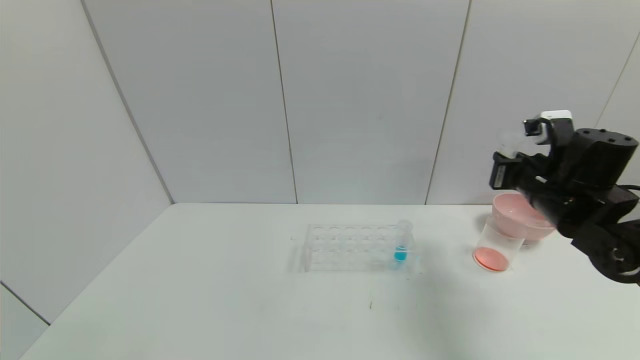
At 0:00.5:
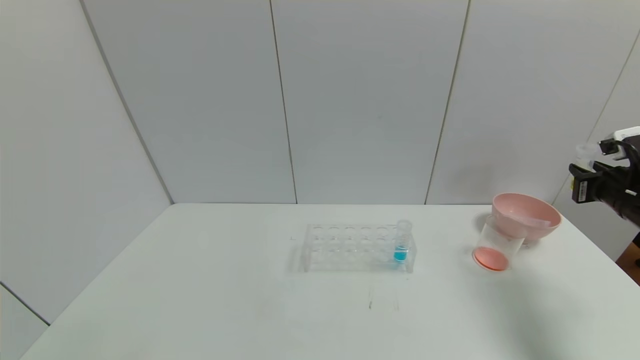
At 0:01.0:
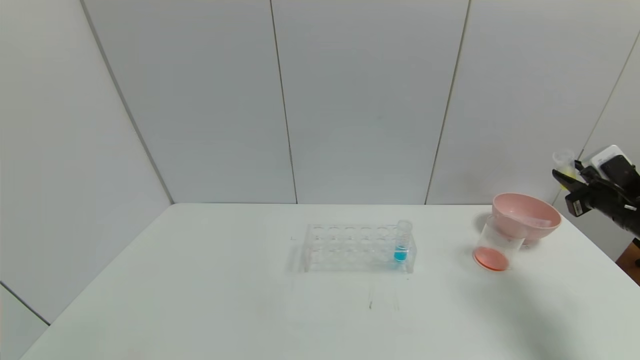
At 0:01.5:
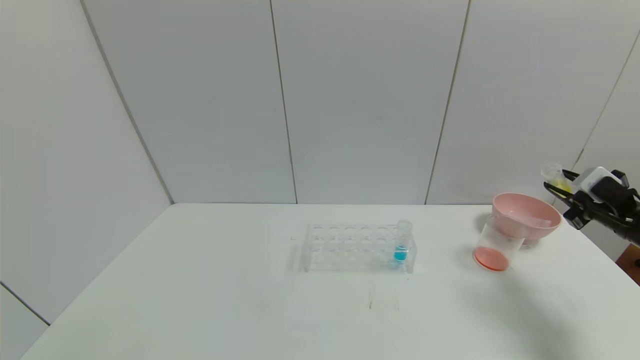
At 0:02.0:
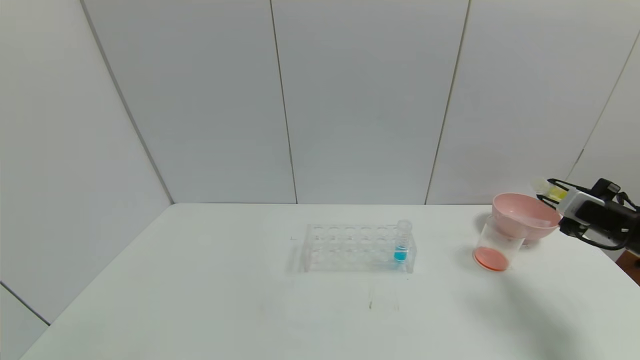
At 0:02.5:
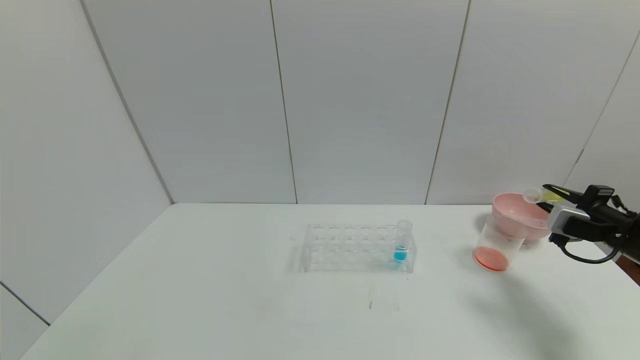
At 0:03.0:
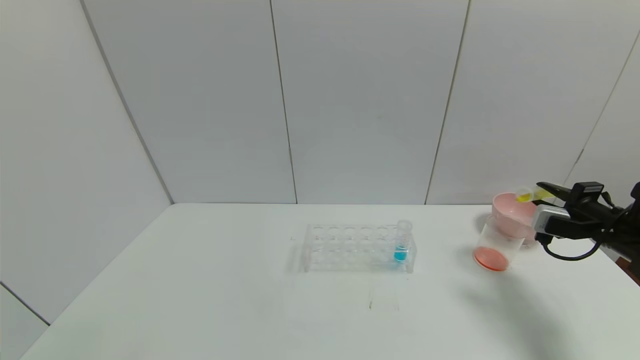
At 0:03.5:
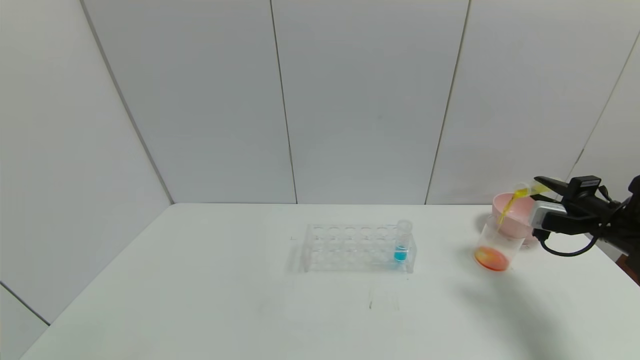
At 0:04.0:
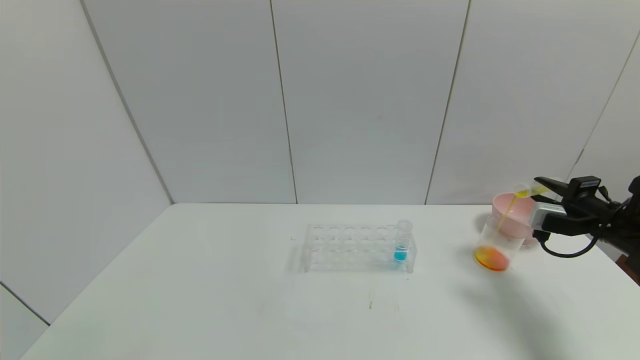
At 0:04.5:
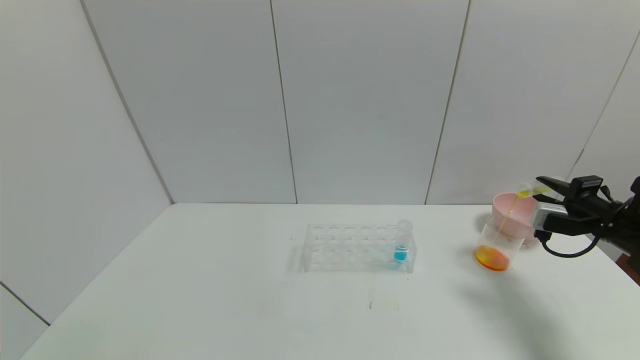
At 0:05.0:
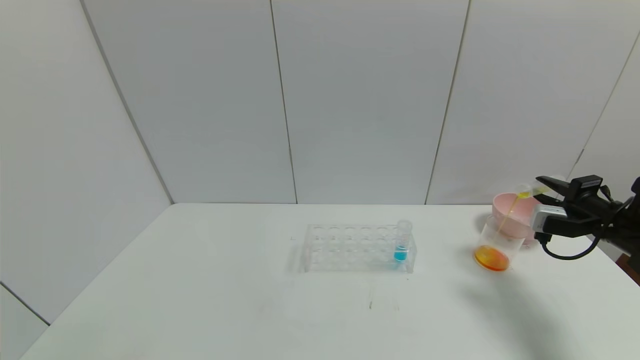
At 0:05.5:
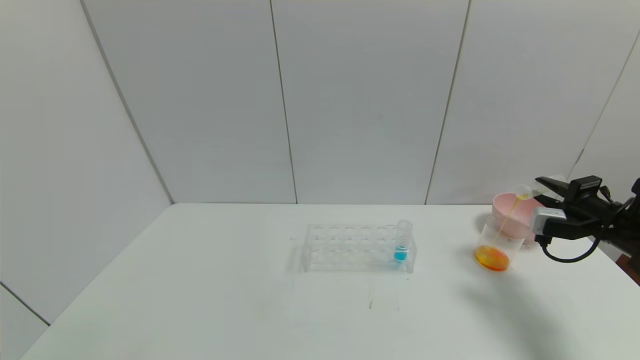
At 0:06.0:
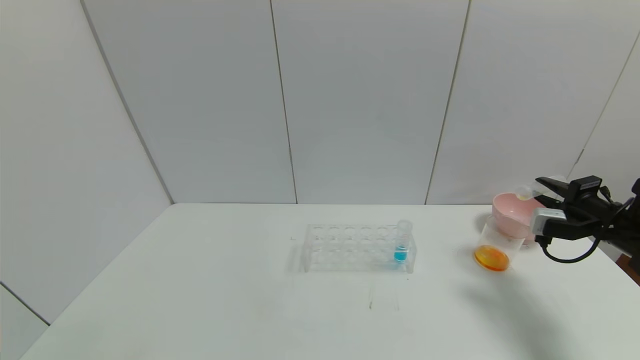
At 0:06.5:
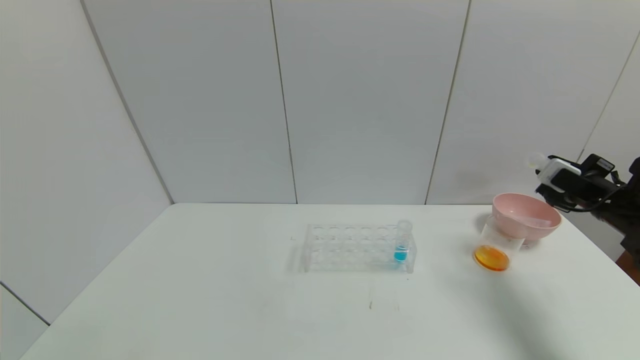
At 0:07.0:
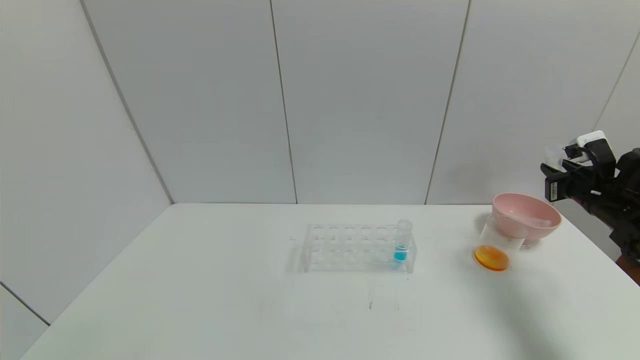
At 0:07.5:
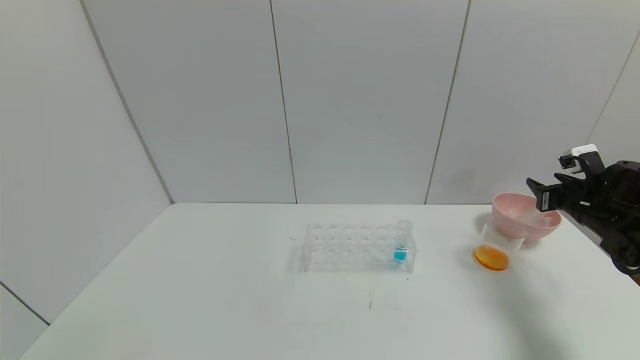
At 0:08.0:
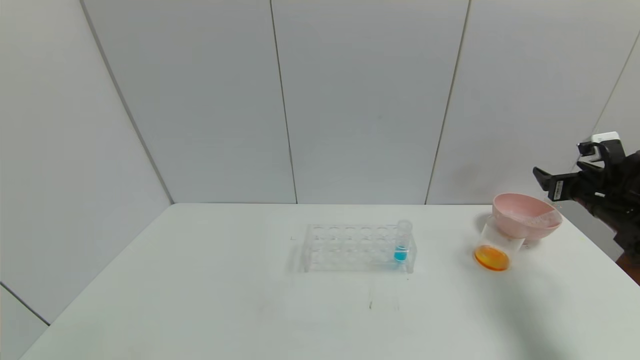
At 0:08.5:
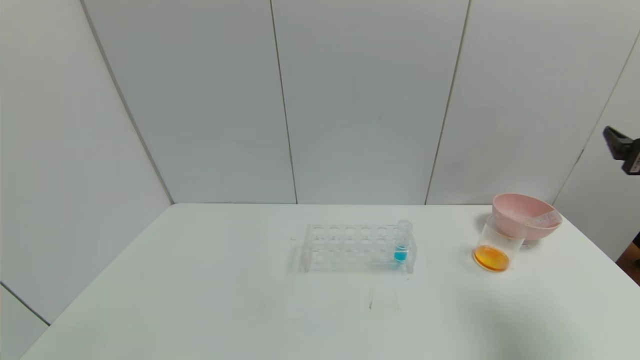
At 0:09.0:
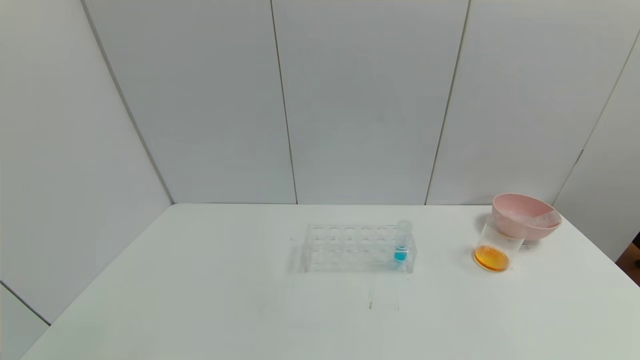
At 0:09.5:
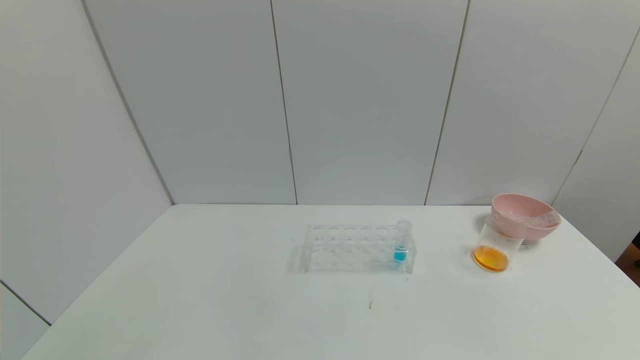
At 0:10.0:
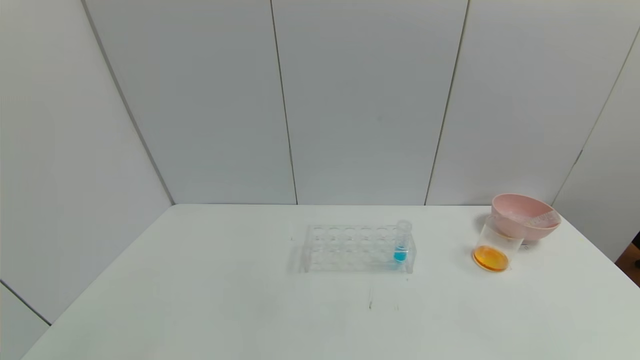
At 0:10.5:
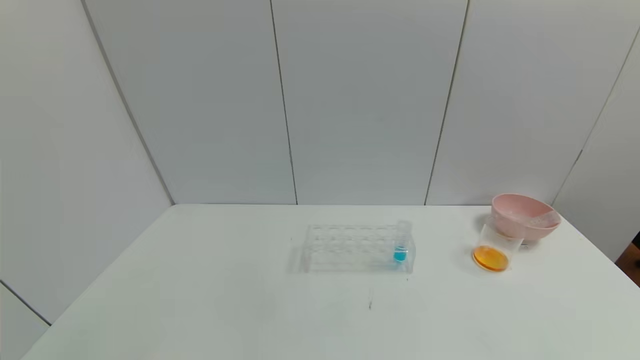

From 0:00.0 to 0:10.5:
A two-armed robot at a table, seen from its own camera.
Task of the whole recording: pick up the test tube with yellow pigment and the test tube with red pigment by grippers and pour them into the beaker.
Step, from 0:00.0 to 0:06.5: Pour the yellow reagent into the graduated cylinder with right gripper.
Step, from 0:07.0 to 0:08.0: Place the test tube into the bowl with right gripper.
From 0:00.0 to 0:02.0: The right gripper is displaced to the right and downward by some 15 cm.
From 0:06.5 to 0:08.5: The right gripper moves backward and upward, some 15 cm, and opens.
From 0:08.5 to 0:10.5: The right gripper heads backward and downward, covering about 35 cm.

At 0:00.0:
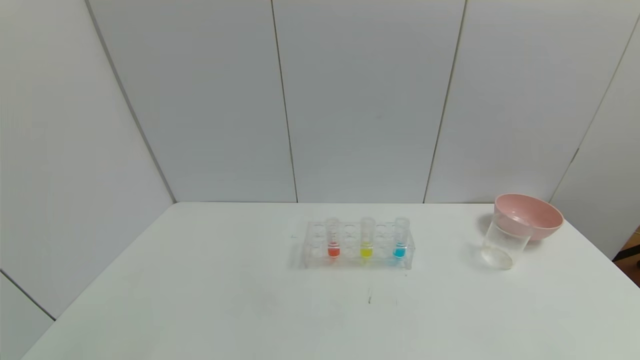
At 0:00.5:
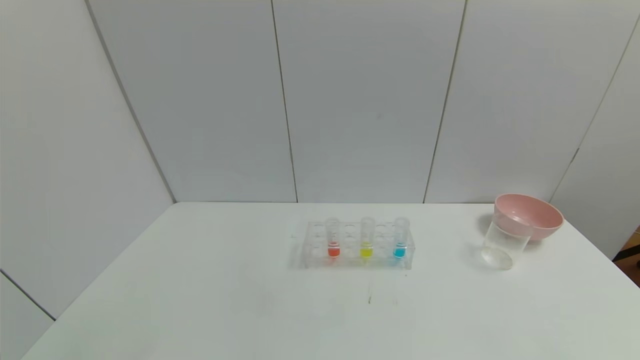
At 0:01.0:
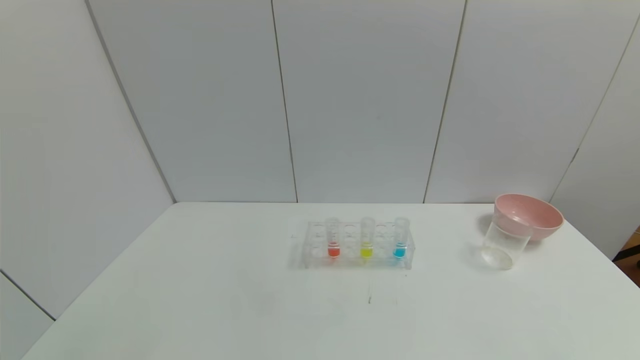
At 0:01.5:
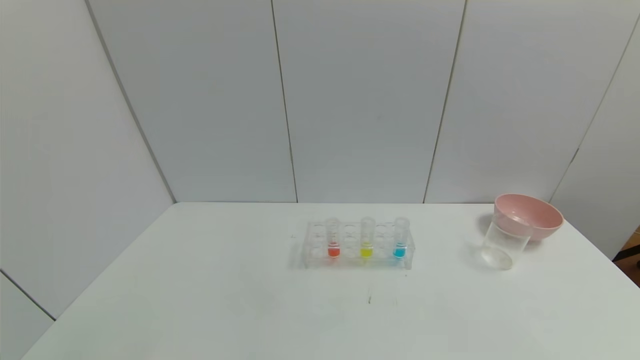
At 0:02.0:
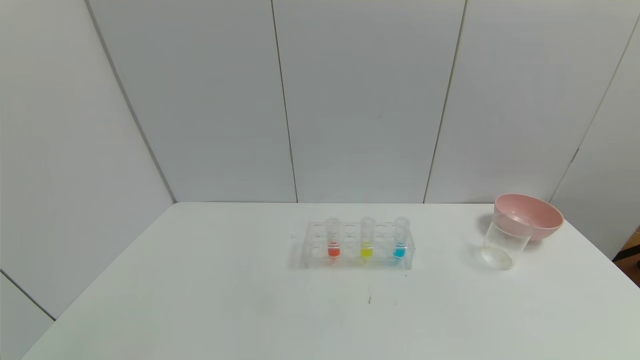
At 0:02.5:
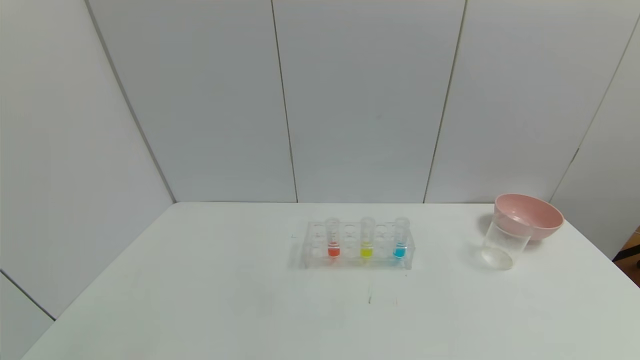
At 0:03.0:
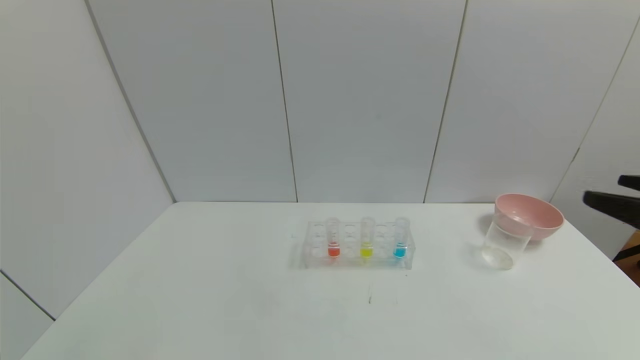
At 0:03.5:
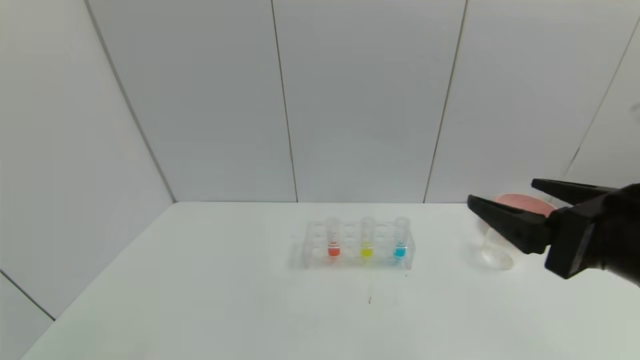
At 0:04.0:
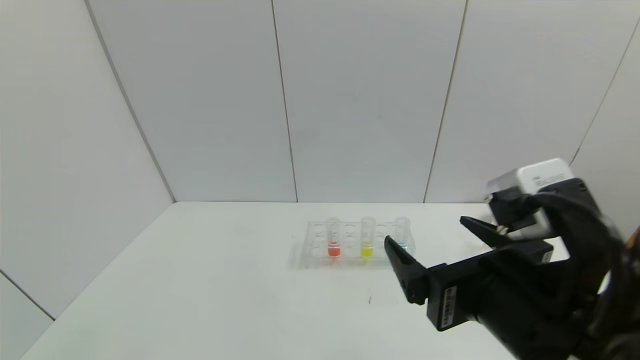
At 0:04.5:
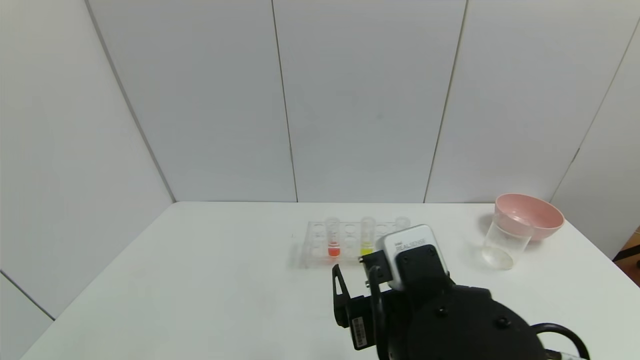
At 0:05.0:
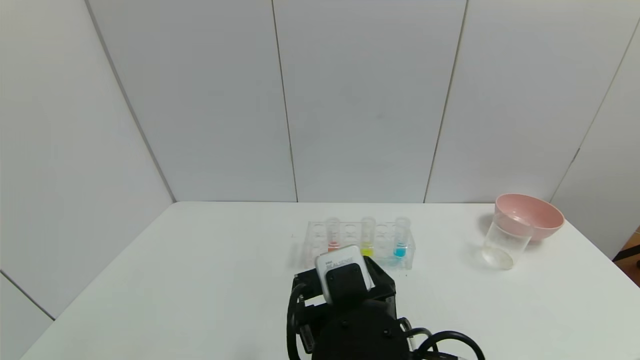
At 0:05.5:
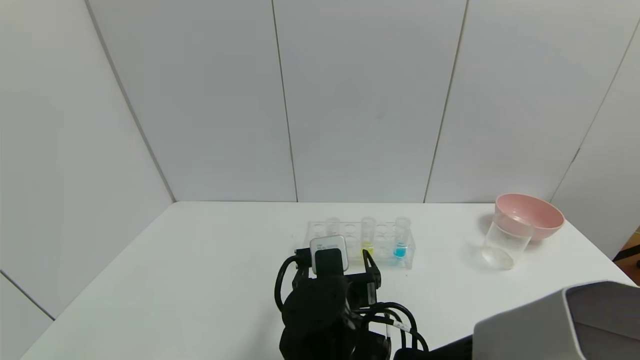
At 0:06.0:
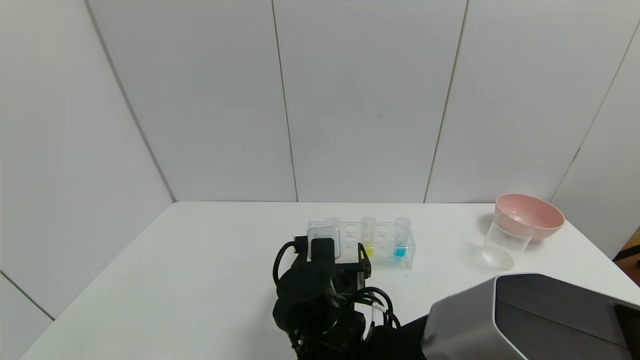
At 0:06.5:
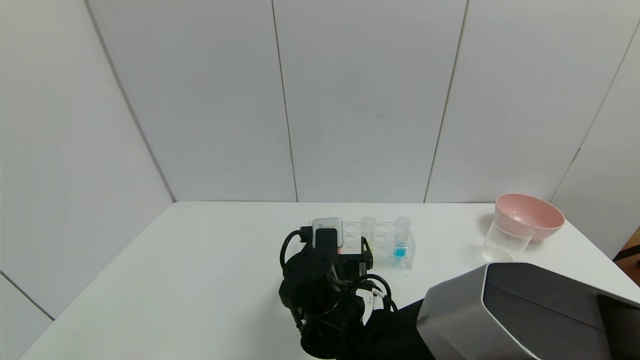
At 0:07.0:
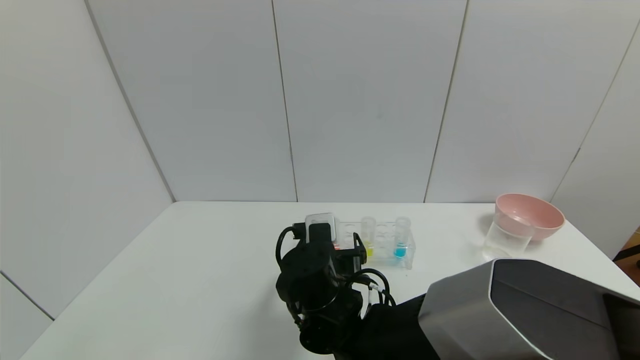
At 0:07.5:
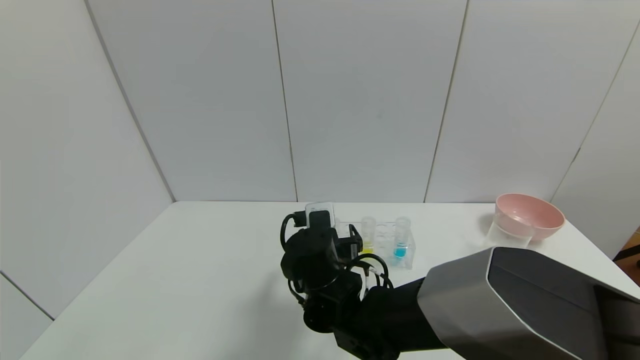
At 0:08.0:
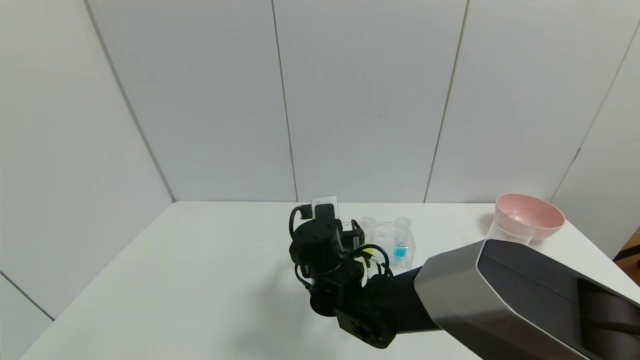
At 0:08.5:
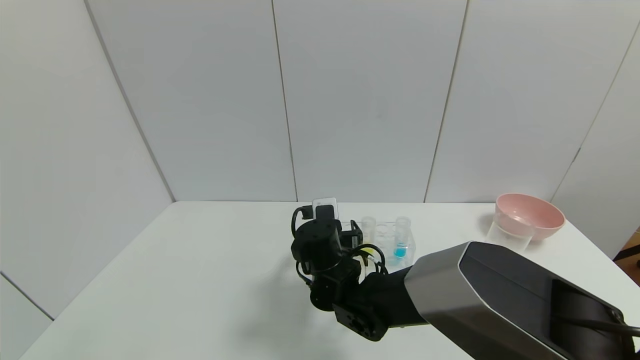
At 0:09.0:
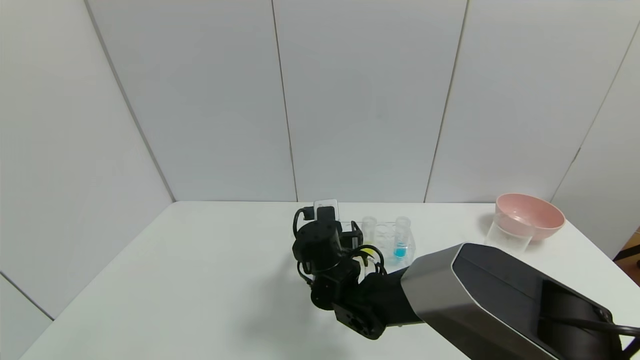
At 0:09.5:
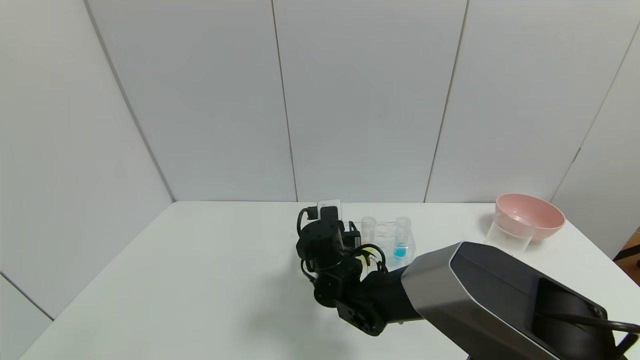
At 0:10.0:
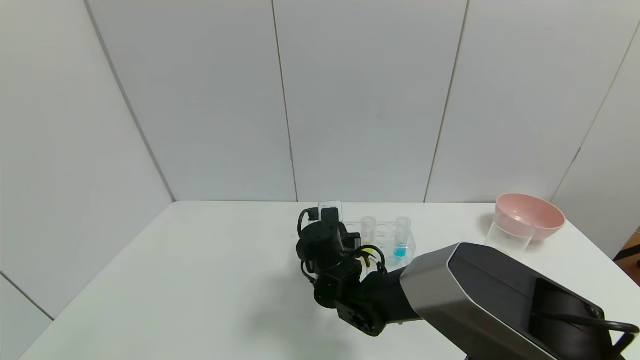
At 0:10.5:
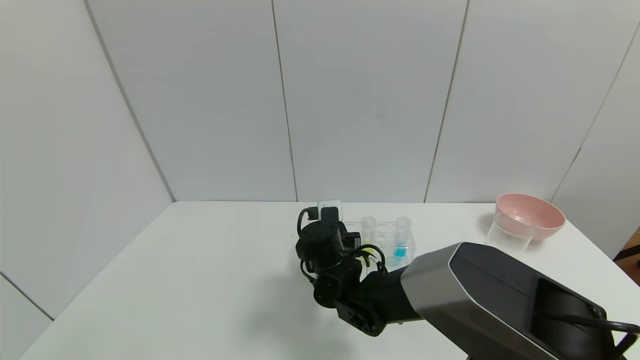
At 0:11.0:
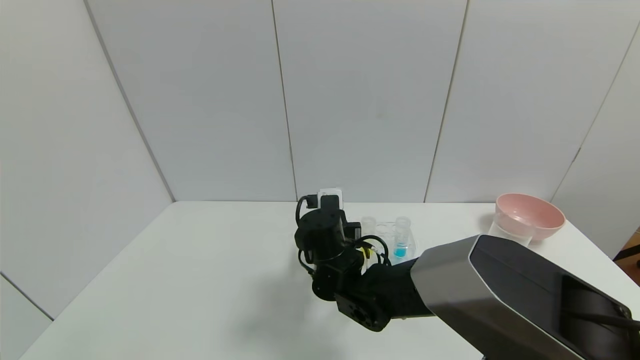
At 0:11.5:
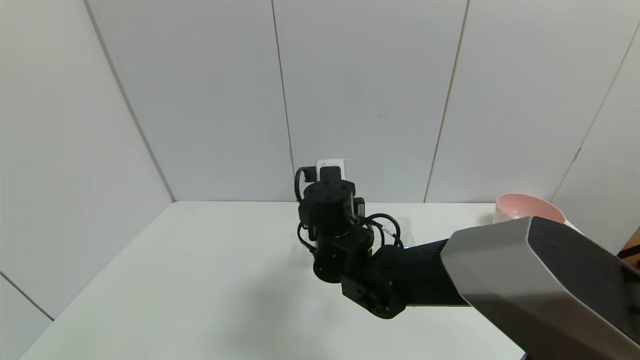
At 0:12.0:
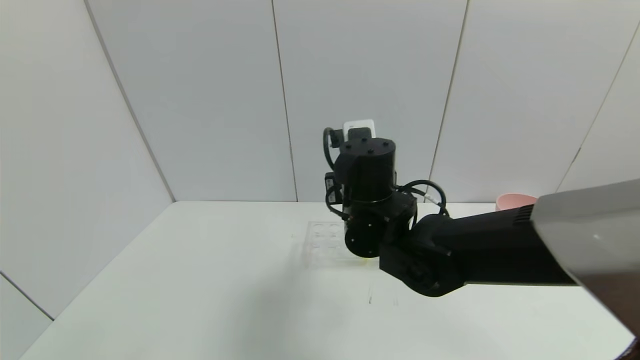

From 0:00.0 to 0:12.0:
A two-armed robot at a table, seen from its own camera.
Task of the whole recording: pick up the test tube with yellow pigment and the test tube with red pigment by grippers and pour them into the beaker.
From 0:02.0 to 0:04.0: The right gripper goes about 25 cm to the left and forward.
From 0:04.0 to 0:06.0: The right gripper goes roughly 25 cm to the left, downward and forward.
From 0:06.0 to 0:08.0: The right gripper travels forward by roughly 5 cm.
From 0:08.0 to 0:10.0: The right gripper closes up.
From 0:10.0 to 0:12.0: The right gripper travels upward by about 15 cm.
